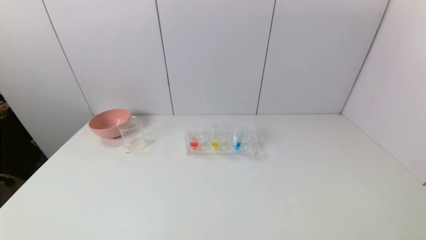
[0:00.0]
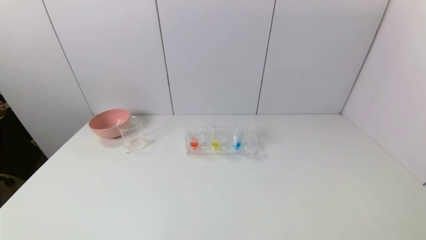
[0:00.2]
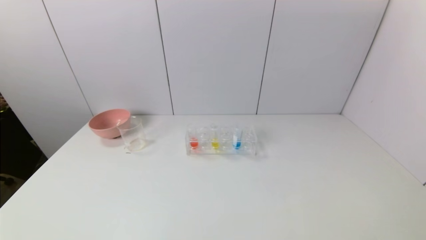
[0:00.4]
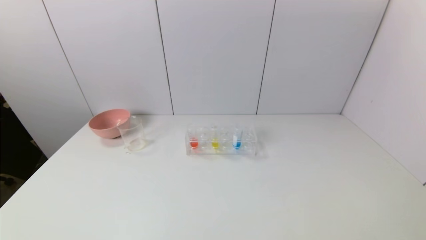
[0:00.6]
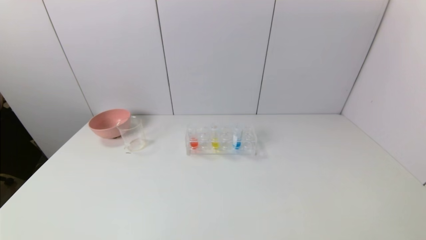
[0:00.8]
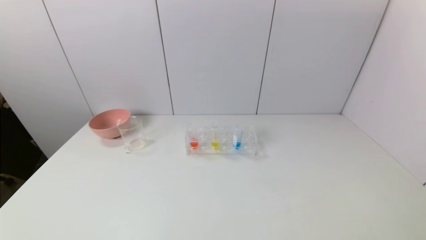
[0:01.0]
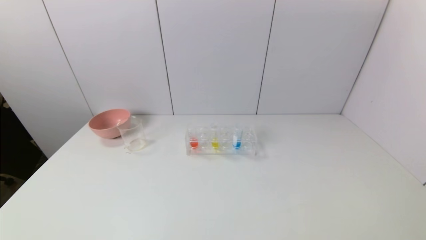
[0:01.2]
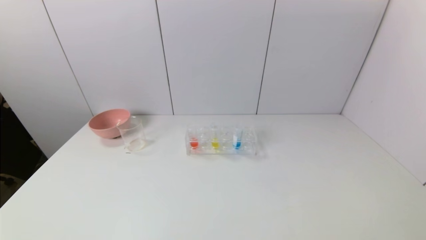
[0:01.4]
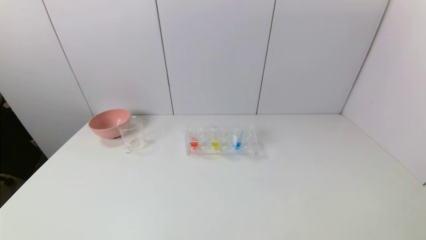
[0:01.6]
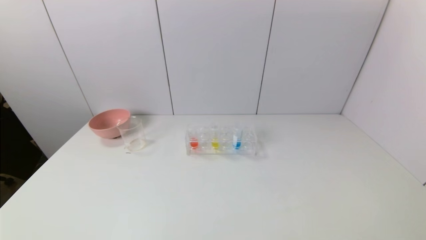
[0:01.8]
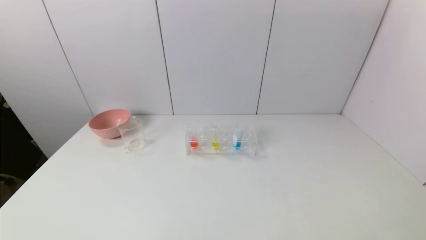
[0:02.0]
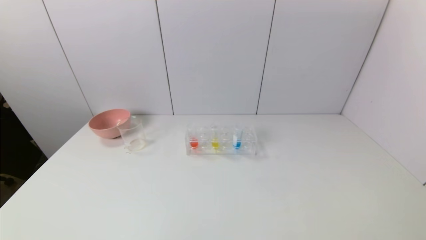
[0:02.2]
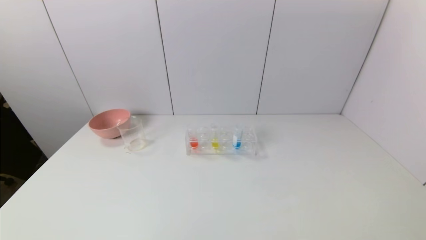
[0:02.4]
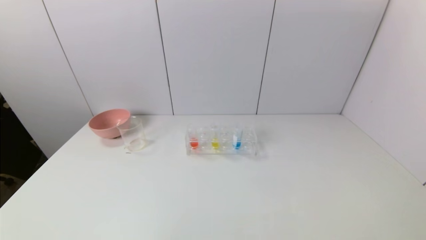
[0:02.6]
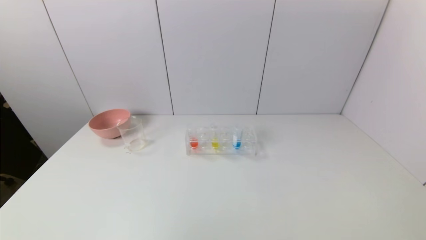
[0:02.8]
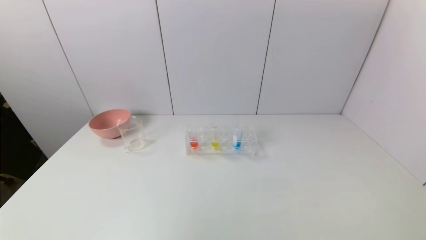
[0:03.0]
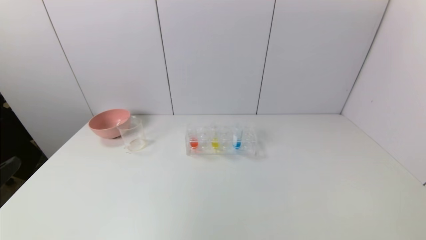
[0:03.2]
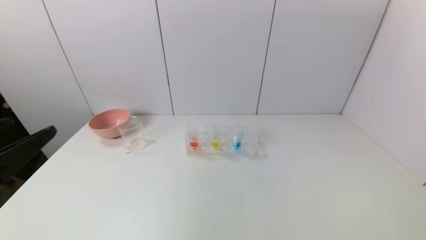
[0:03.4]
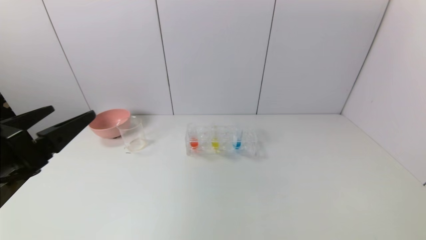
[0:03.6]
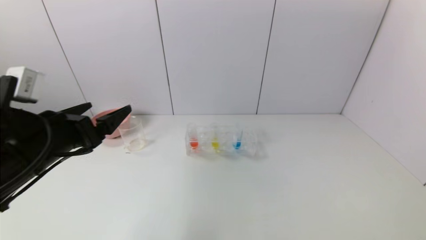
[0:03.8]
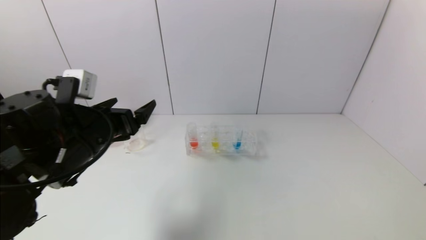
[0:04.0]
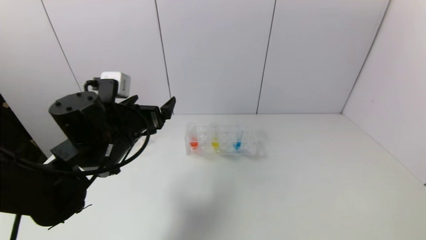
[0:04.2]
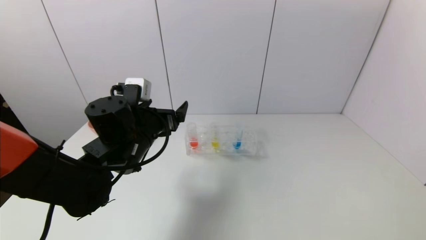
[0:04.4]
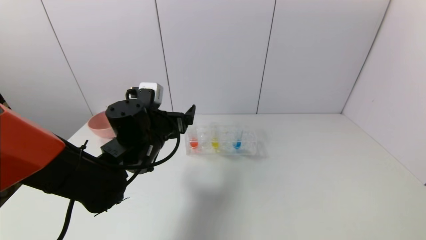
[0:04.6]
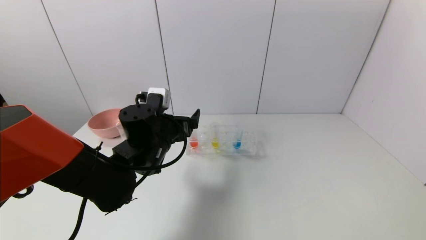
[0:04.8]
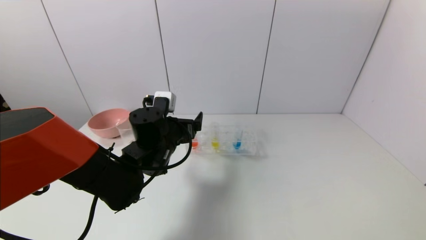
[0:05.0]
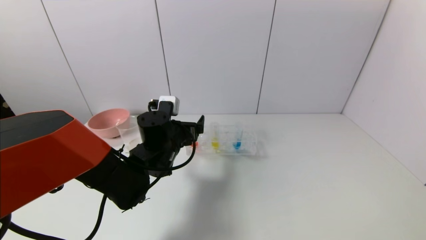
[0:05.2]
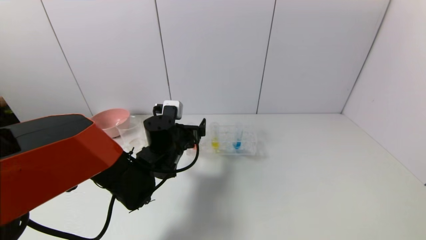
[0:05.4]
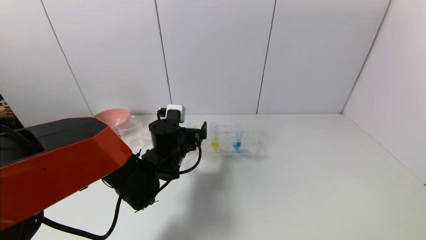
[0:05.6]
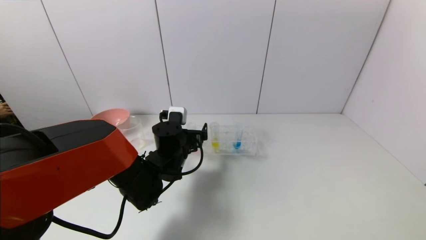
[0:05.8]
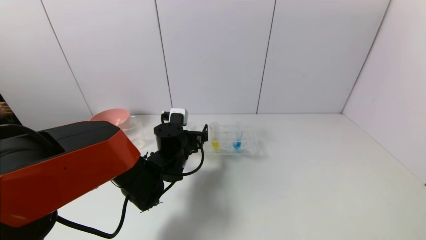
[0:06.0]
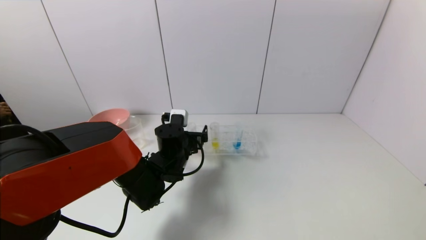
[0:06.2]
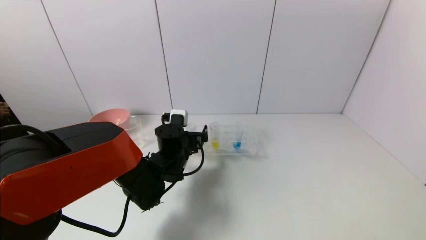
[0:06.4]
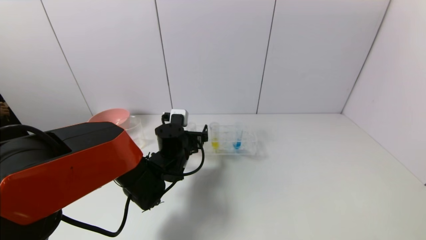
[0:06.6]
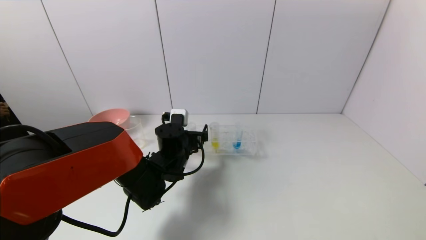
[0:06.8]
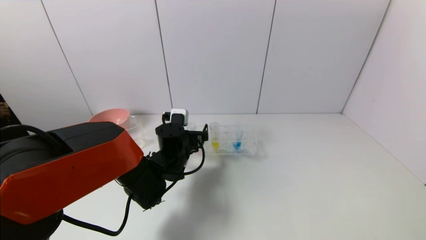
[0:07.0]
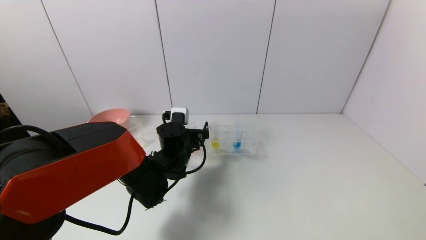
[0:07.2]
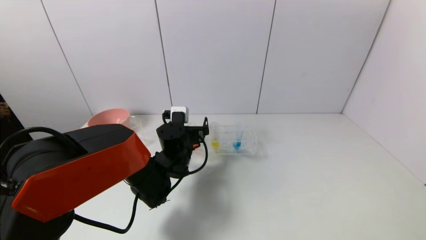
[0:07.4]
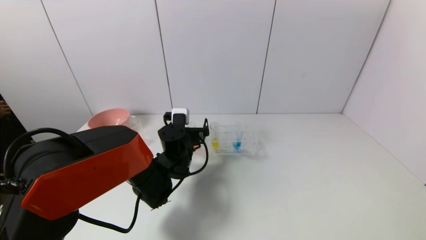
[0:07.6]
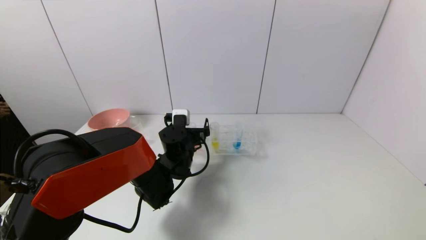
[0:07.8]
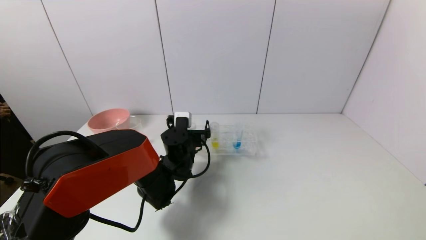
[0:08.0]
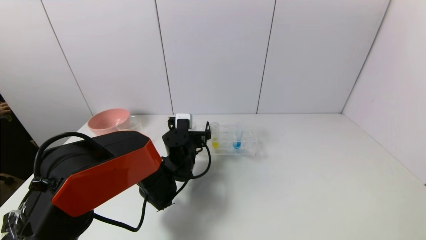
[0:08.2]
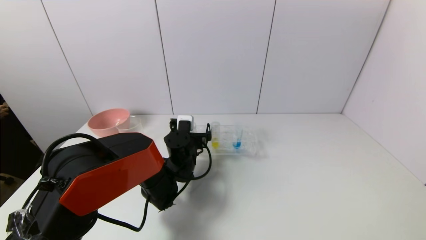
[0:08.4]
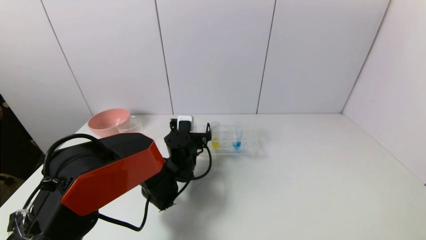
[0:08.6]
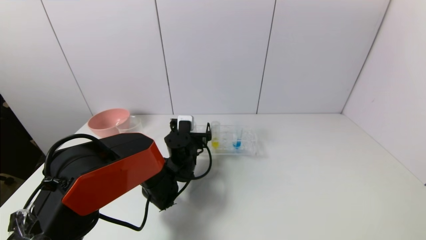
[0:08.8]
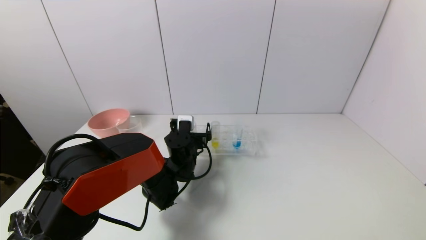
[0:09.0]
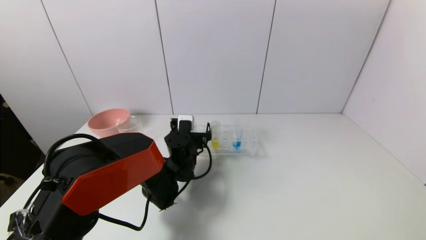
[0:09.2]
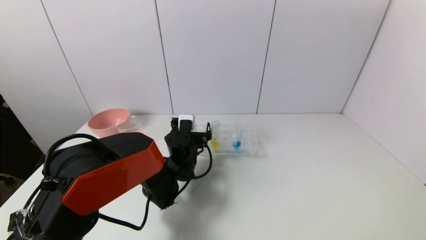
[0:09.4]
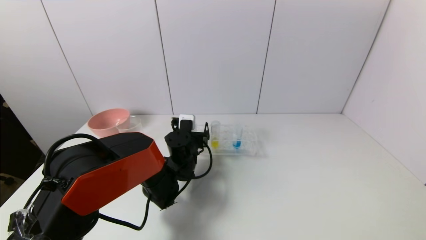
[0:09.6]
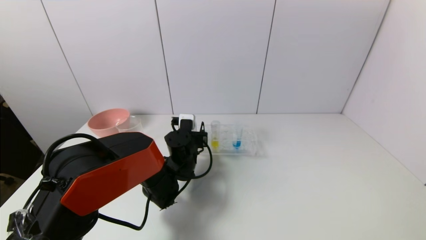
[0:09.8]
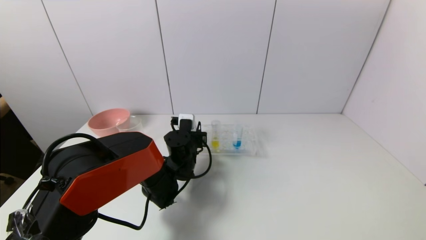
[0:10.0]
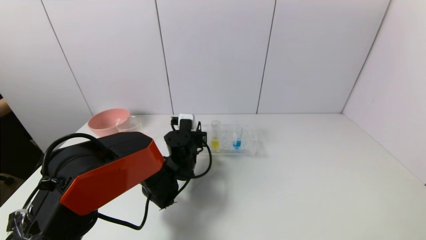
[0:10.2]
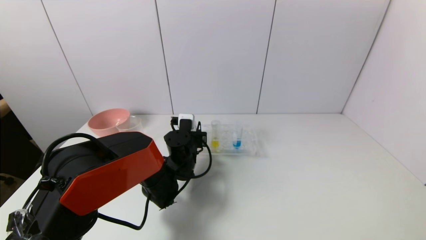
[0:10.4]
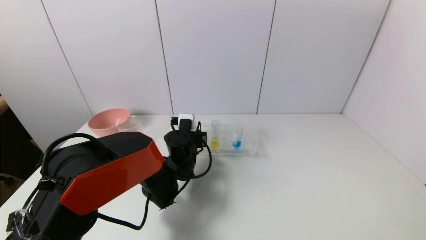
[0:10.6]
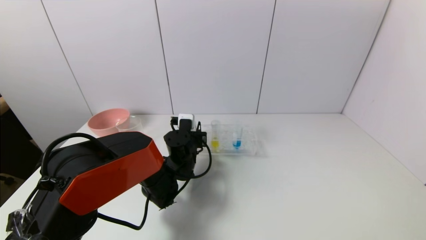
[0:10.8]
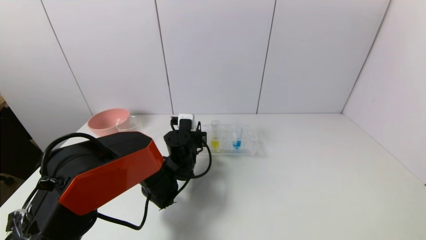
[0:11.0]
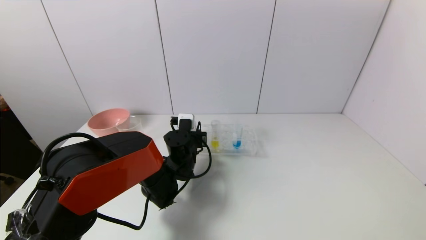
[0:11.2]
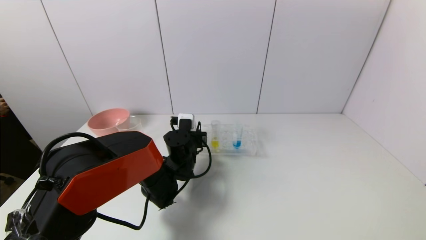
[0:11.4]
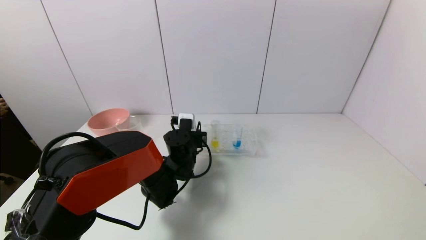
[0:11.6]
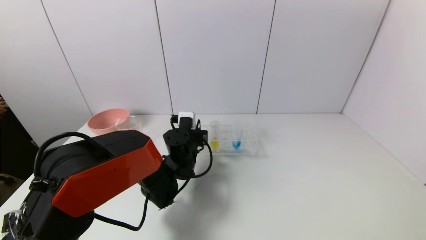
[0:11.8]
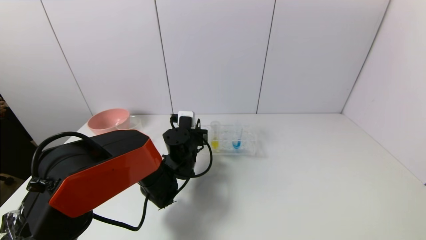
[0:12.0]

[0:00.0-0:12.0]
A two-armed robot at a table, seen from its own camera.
Task of the whole recording: pick up the test tube with yellow pigment and the test tube with red pigment by grippers and pour them into the beaker.
Step, 0:00.0 to 0:11.6: Grasp the red reagent with the left gripper.
0:03.0 to 0:04.4: The left gripper heads forward and to the right, covering approximately 35 cm.
0:04.4 to 0:06.0: The left gripper shifts roughly 10 cm downward, to the right and forward.
0:06.0 to 0:09.0: The grippers stay close to where they were, moving slightly.
0:09.0 to 0:10.4: The left gripper closes up.
0:10.4 to 0:12.0: Both grippers stay put.

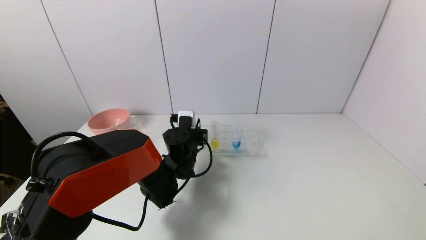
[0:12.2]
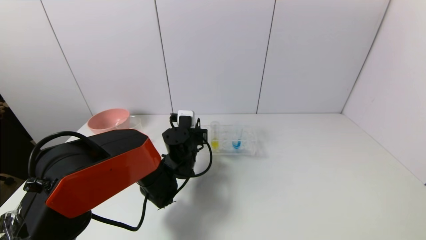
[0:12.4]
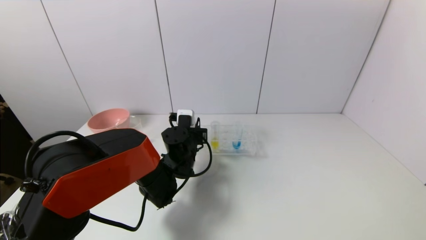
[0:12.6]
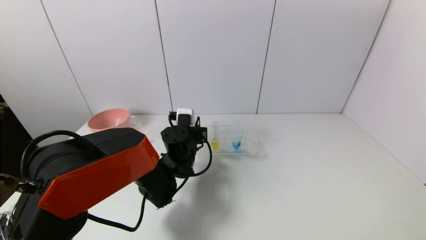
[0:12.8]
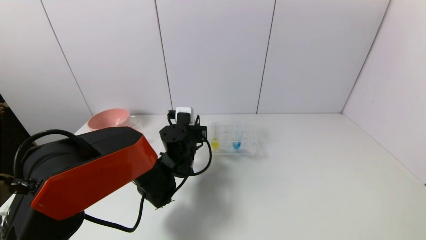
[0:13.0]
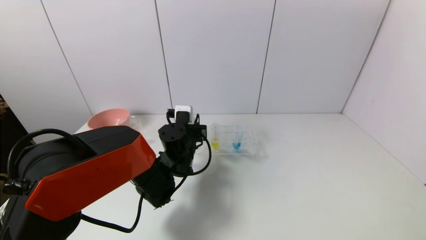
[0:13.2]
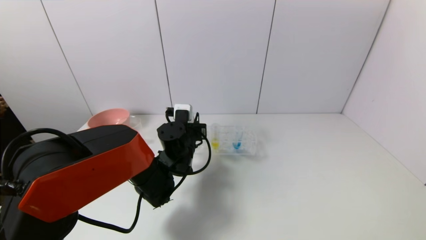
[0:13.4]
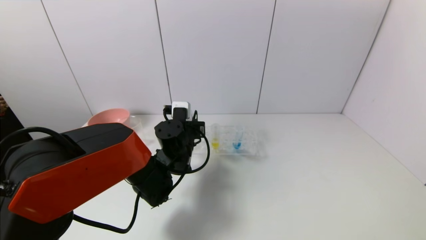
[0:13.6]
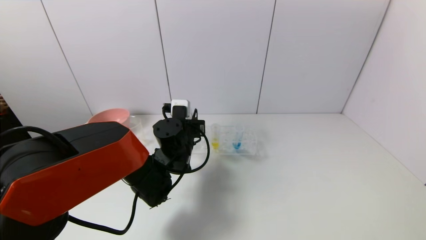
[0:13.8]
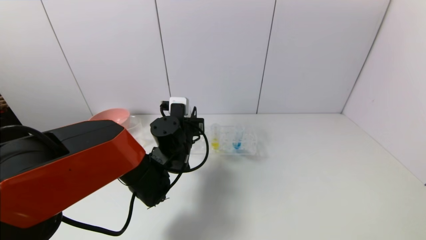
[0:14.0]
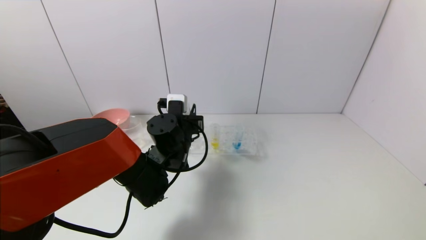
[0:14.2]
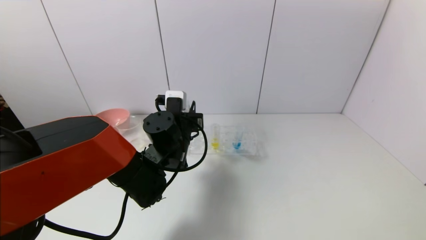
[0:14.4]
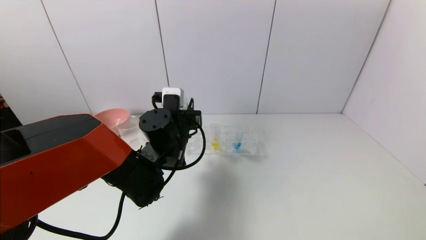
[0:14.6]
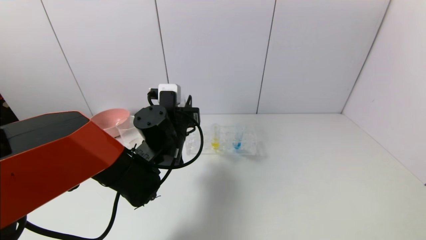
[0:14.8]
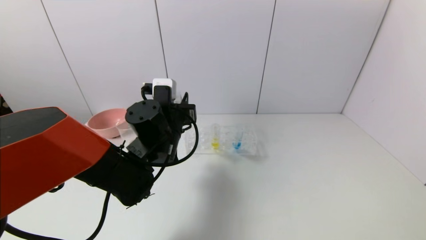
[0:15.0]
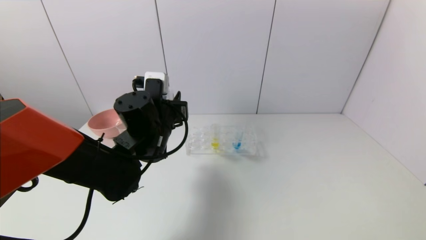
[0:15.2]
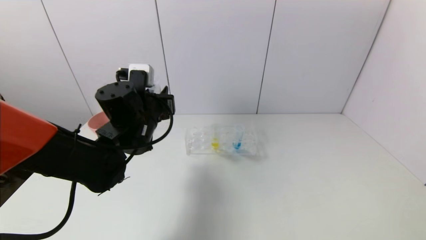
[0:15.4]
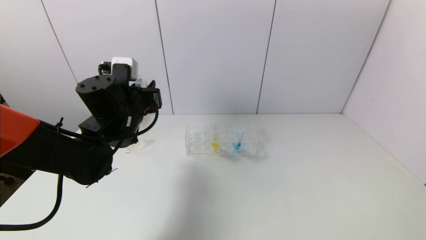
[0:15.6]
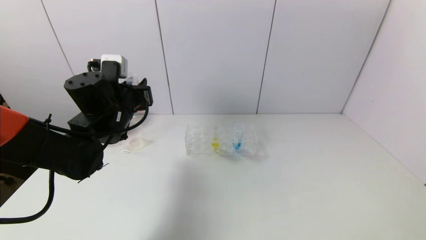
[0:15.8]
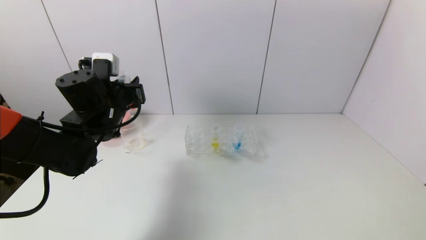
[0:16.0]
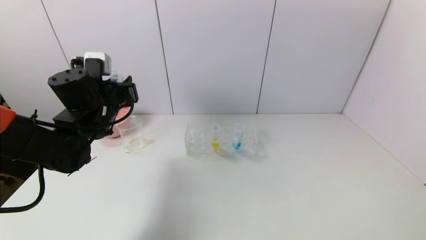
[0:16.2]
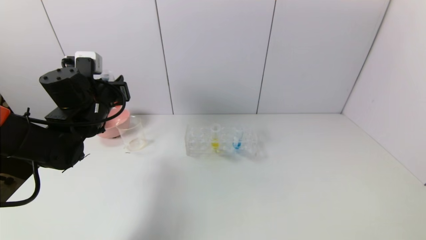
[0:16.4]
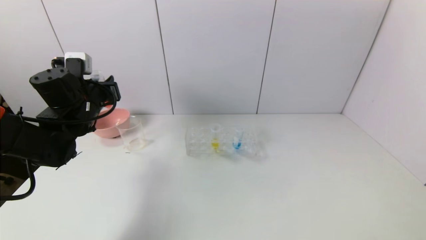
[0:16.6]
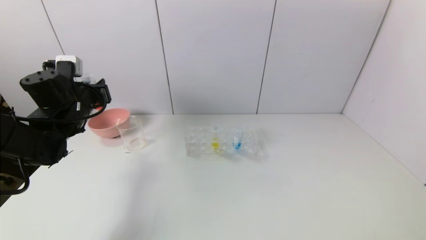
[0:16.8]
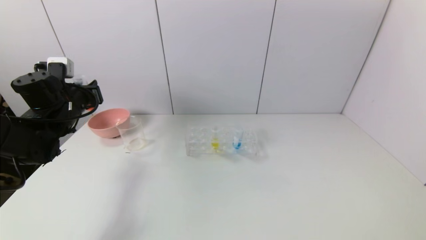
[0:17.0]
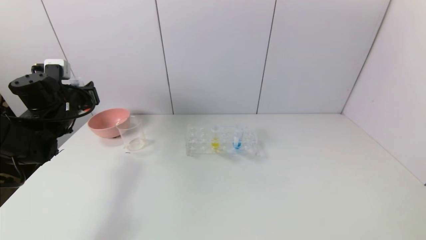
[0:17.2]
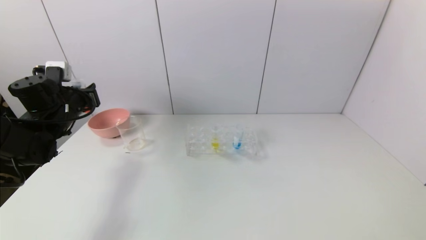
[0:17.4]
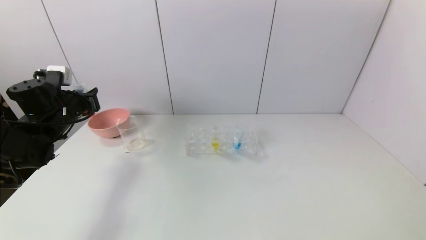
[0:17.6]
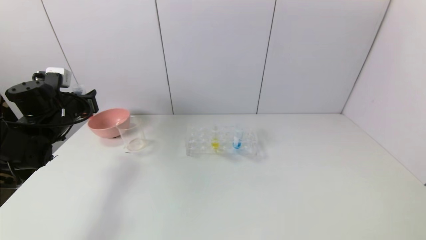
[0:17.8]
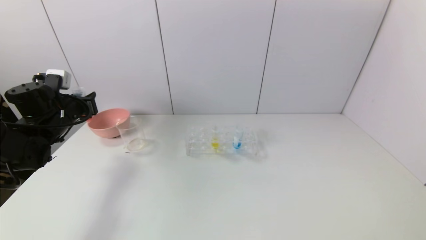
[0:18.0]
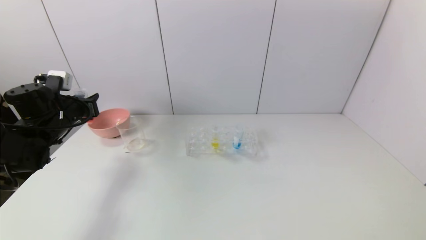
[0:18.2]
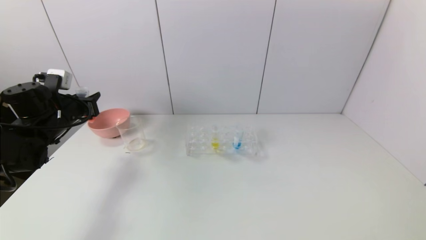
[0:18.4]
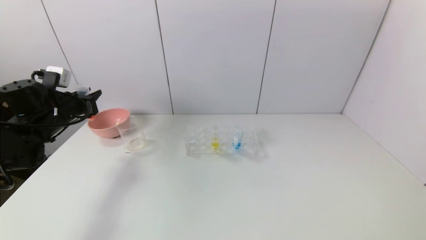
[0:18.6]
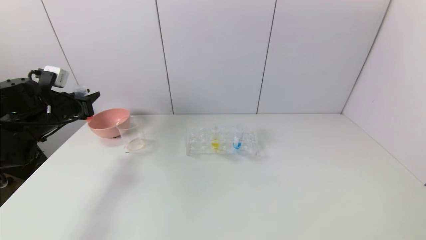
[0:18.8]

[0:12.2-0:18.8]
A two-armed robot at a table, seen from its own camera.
Task of the whole recording: pick up the test tube with yellow pigment and the test tube with red pigment by grippers and pour them into the beaker.
0:12.2 to 0:13.8: There are only small adjustments of the grippers.
0:13.8 to 0:15.4: The left gripper moves upward and to the left, roughly 10 cm.
0:15.4 to 0:17.2: The left gripper travels to the left by roughly 20 cm.
